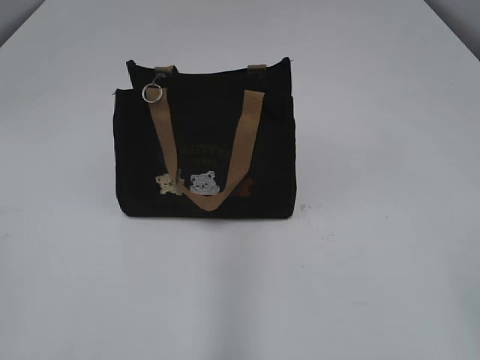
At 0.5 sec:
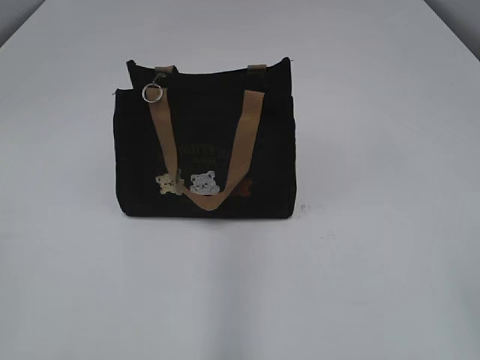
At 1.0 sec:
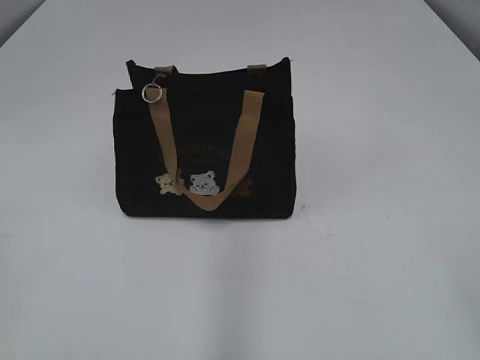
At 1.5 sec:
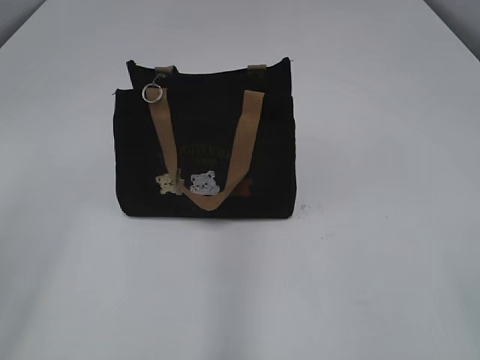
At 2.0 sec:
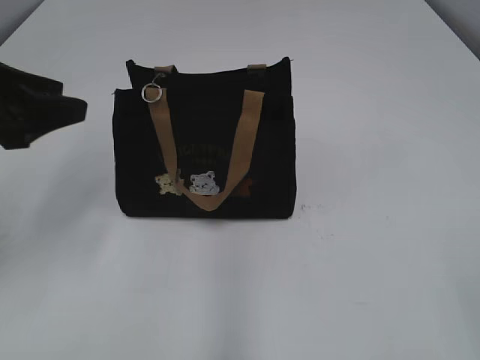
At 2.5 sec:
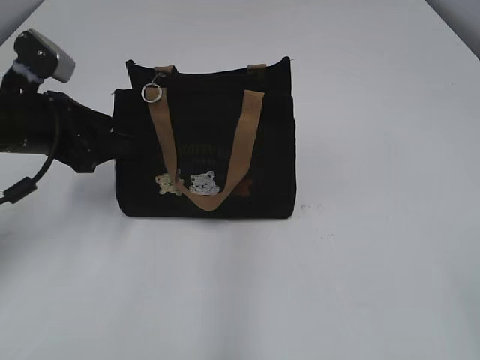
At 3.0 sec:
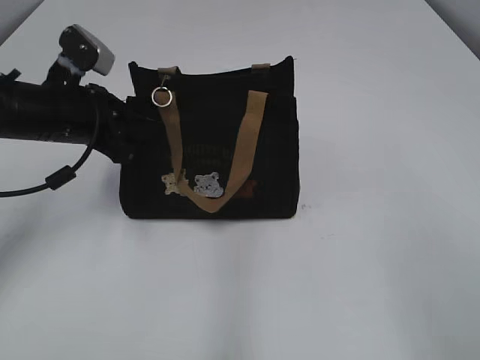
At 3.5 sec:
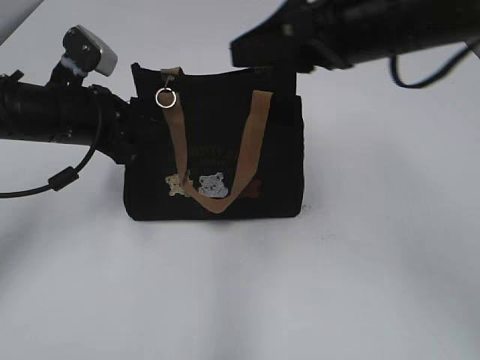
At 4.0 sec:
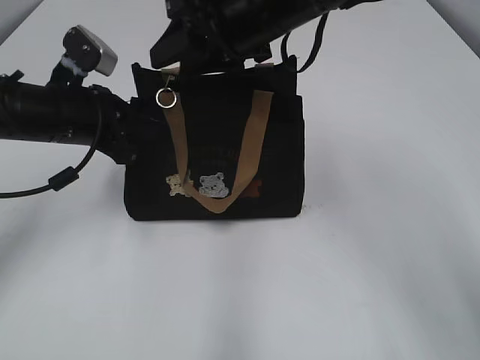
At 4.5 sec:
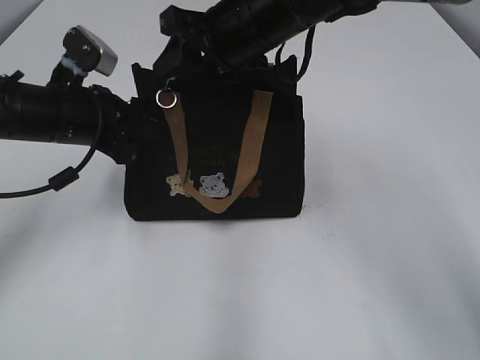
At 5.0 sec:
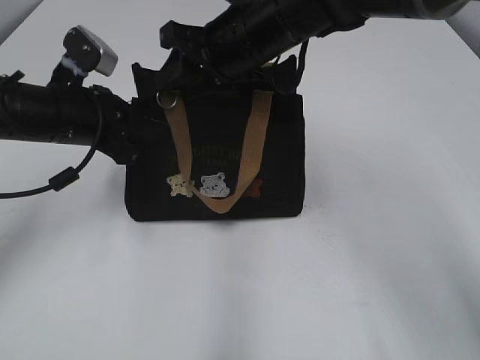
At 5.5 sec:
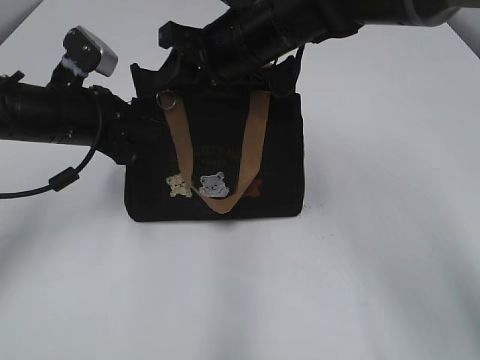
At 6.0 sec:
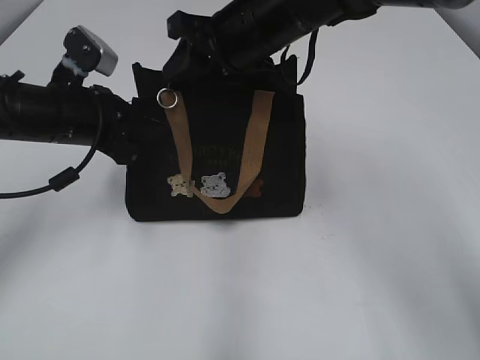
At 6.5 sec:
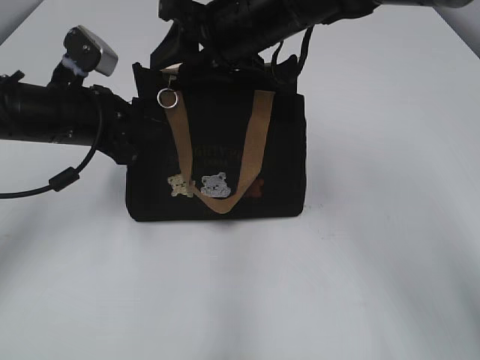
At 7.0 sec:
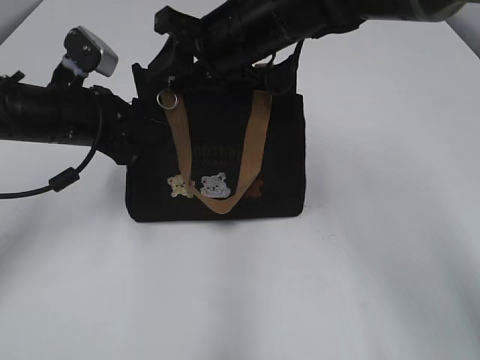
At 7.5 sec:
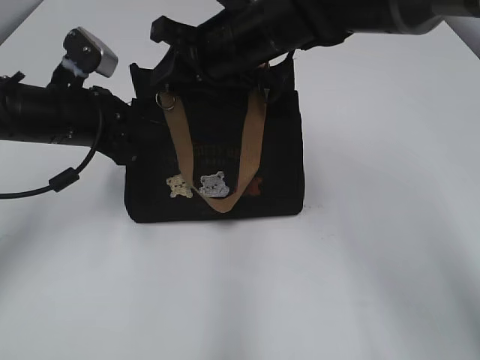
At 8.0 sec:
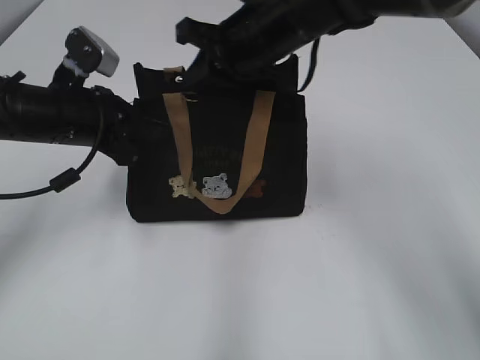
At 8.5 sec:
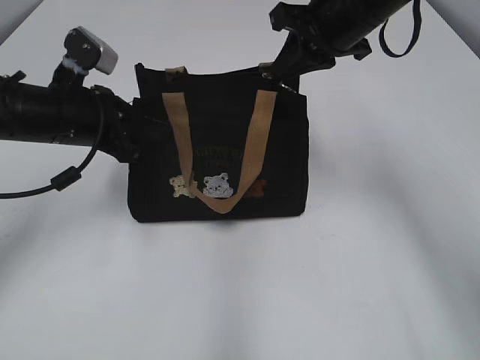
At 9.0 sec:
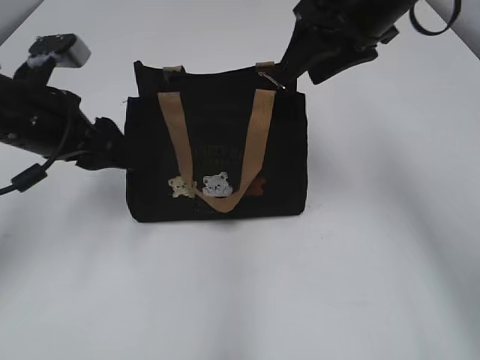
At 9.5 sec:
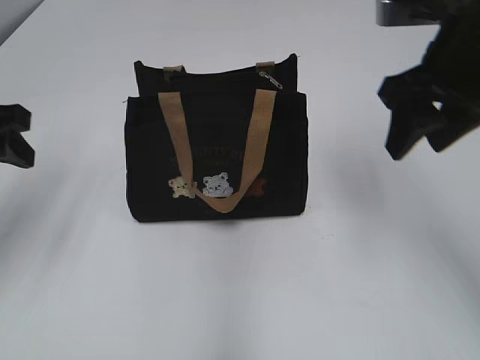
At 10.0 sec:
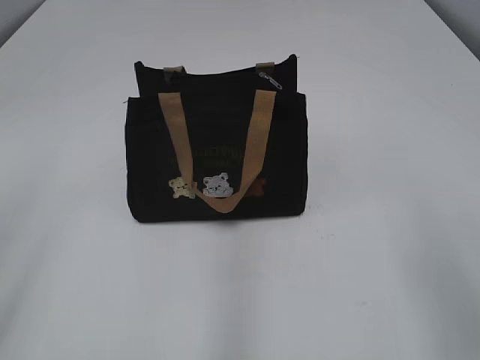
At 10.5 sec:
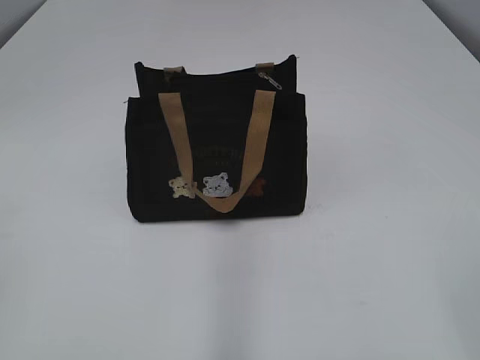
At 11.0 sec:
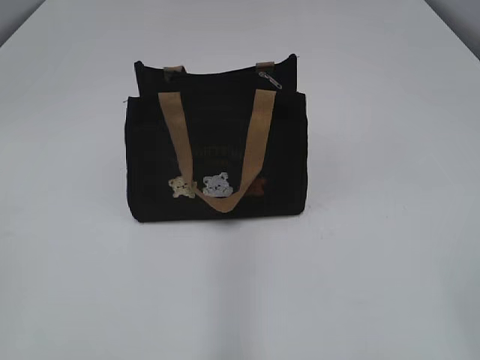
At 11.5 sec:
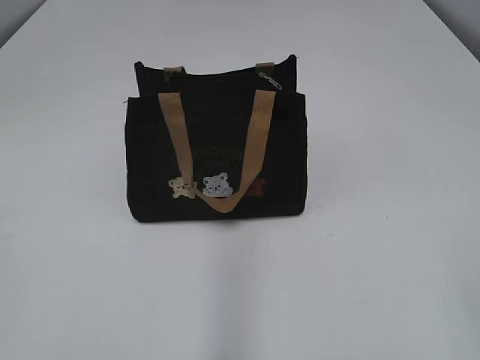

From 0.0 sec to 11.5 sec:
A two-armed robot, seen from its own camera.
Step, from 0.0 sec to 8.5 sec: Pull open the zipper with your right hand.
From 2.0 sec to 4.0 sec: The right gripper shifts roughly 40 cm forward and to the left. The left gripper moves forward, downward and to the right, about 15 cm, and closes up.
From 4.0 sec to 7.5 sec: There are only small adjustments of the grippers.
From 7.5 sec to 9.5 sec: The left gripper moves to the left, backward and upward, some 10 cm, and opens its fingers. Meanwhile the right gripper shifts roughly 20 cm to the right and backward, and opens its fingers.
From 9.5 sec to 11.5 sec: Both grippers move backward, approximately 30 cm.

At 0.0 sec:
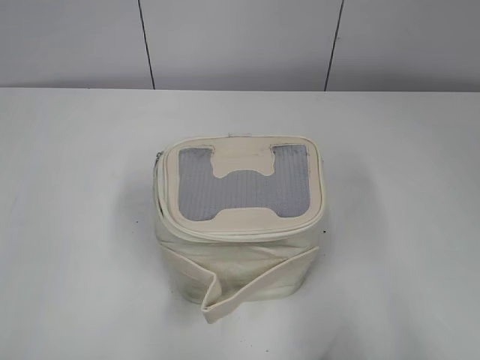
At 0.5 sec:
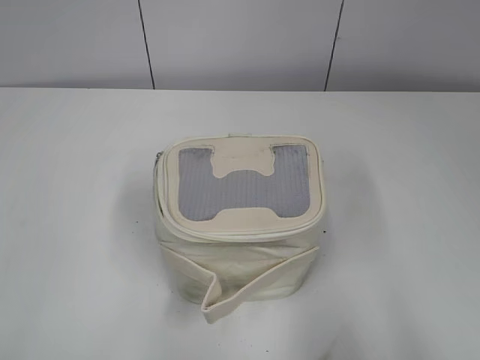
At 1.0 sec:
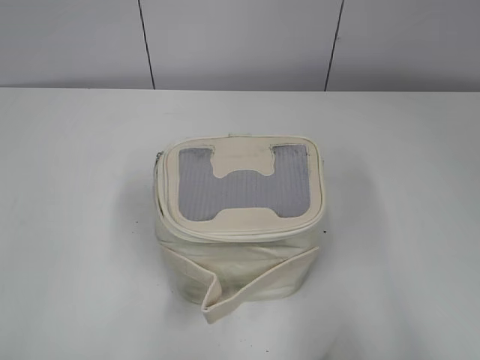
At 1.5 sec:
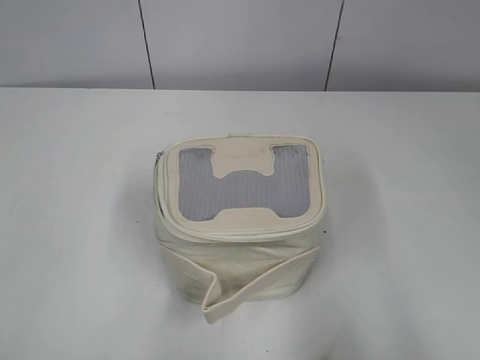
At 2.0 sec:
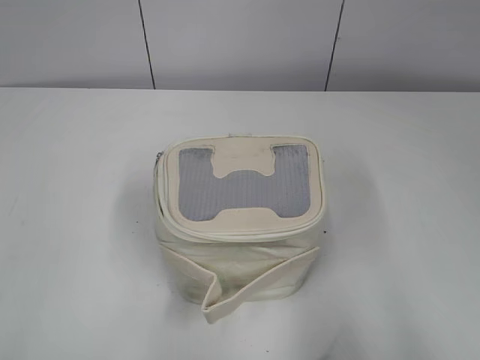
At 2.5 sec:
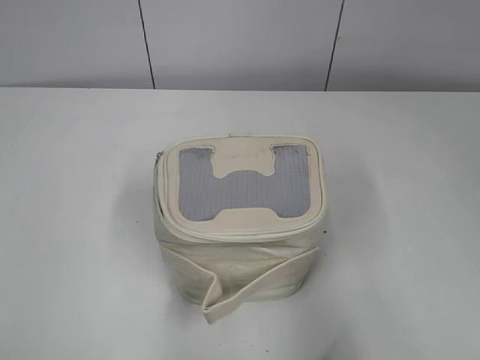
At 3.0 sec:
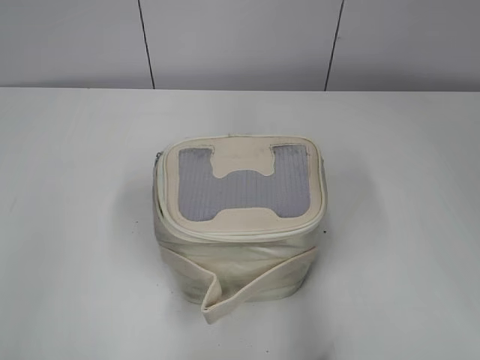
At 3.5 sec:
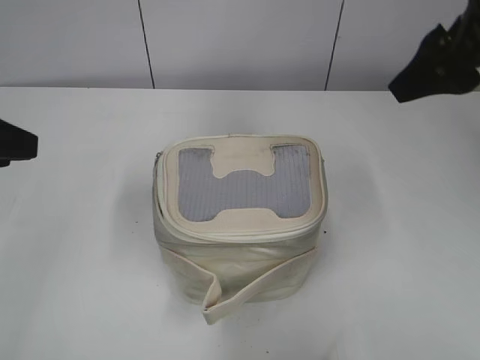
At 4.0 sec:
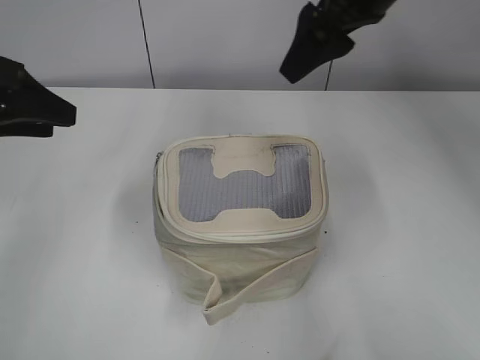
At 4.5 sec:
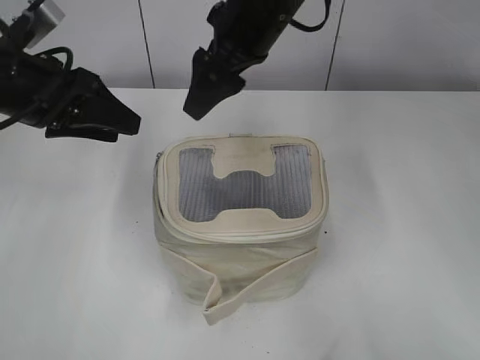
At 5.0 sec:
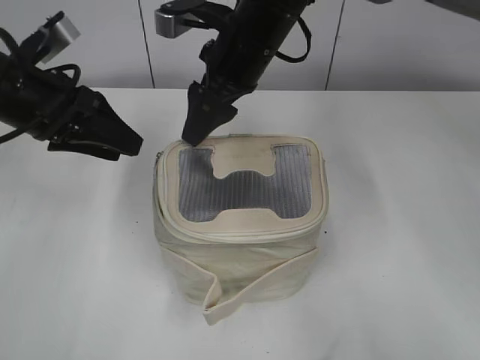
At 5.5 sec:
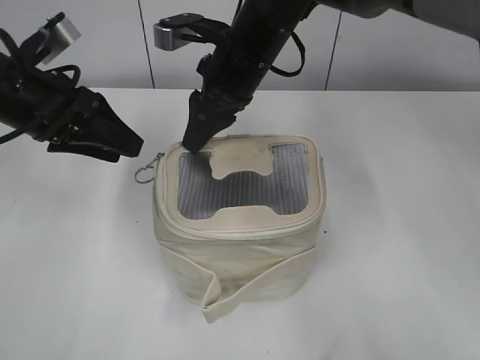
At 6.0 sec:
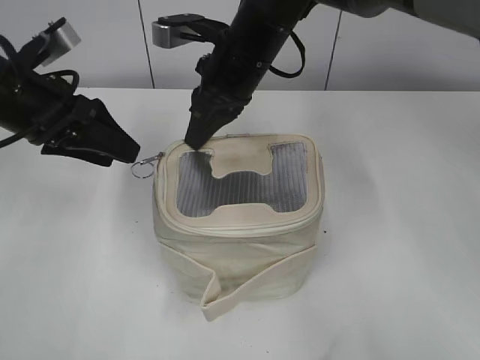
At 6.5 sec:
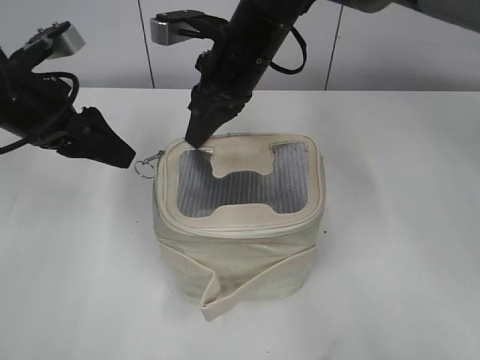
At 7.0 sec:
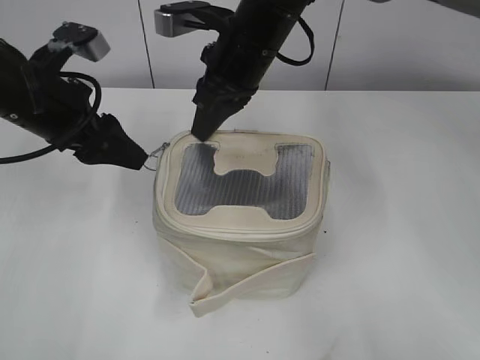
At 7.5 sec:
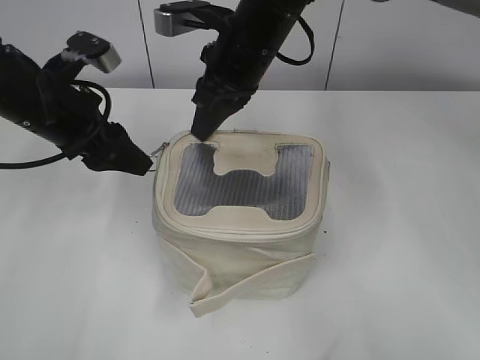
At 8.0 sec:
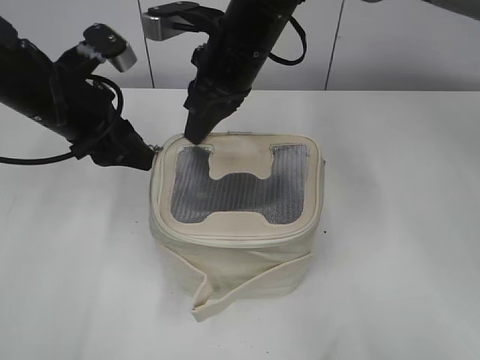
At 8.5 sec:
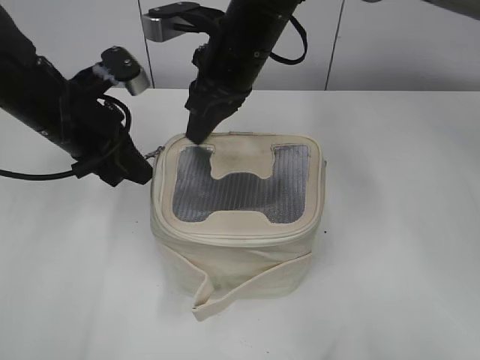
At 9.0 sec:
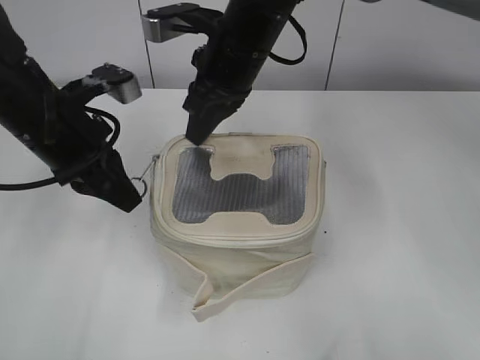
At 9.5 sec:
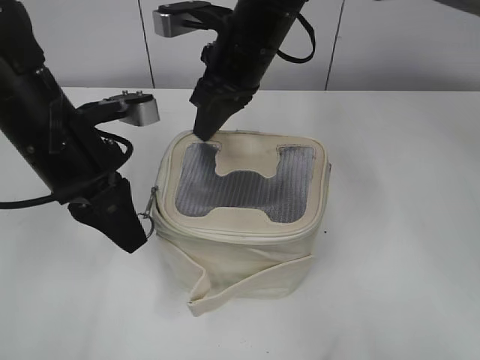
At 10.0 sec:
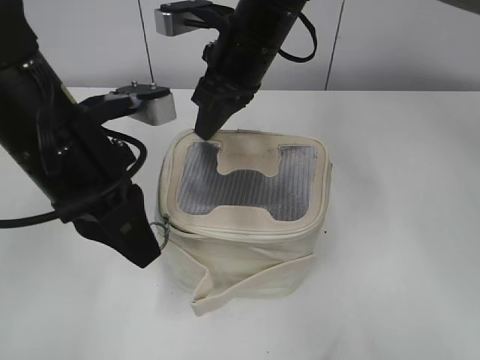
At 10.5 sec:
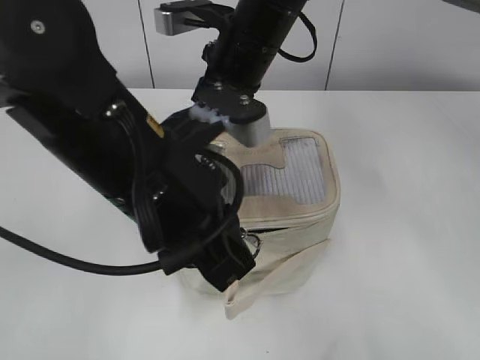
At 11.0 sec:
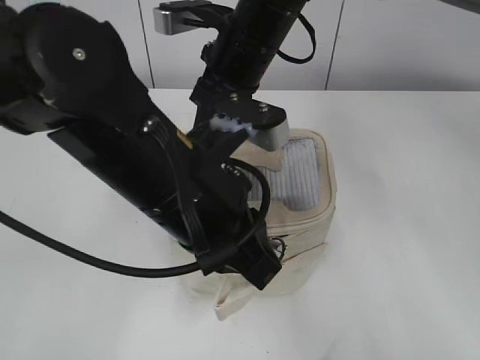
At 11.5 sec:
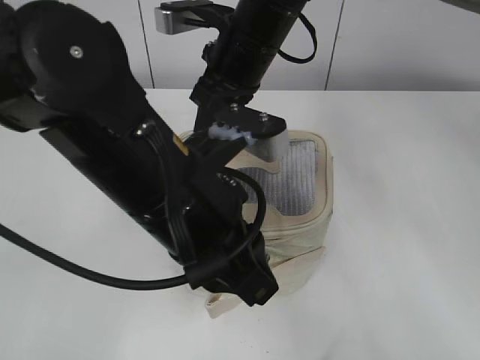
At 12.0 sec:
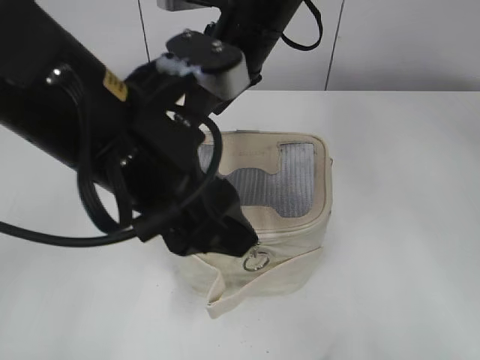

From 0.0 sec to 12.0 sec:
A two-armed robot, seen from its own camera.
Step, from 0.0 sec to 12.0 sec: Hold the bag with your right hand.
From 2.0 sec to 4.0 sec: The left gripper is displaced forward by about 30 cm; the right gripper is displaced forward and to the left by some 40 cm.
From 4.0 sec to 6.0 sec: The right gripper heads to the left and downward, covering roughly 15 cm, and closes. The left gripper travels to the right by about 5 cm.
From 8.0 sec to 10.0 sec: The left gripper shifts about 10 cm backward, and closes its fingers.
From 10.0 sec to 12.0 sec: The right gripper opens. The left gripper heads to the right, covering roughly 5 cm, and opens up.

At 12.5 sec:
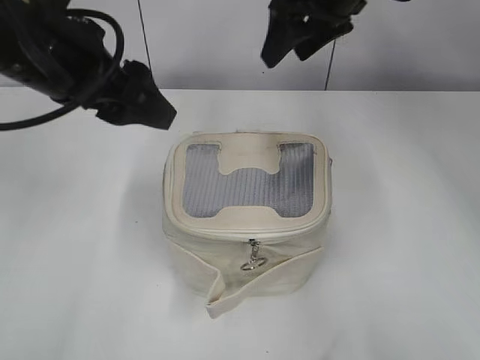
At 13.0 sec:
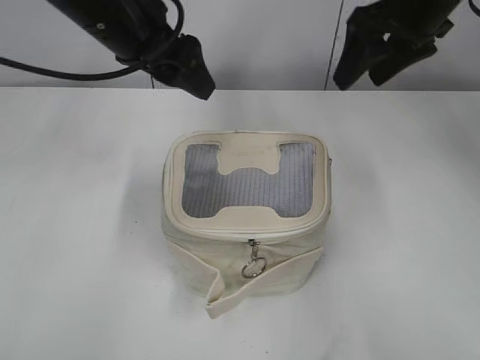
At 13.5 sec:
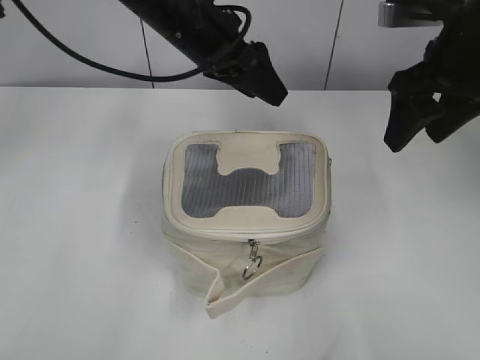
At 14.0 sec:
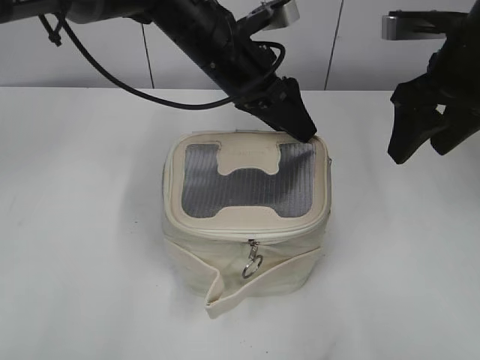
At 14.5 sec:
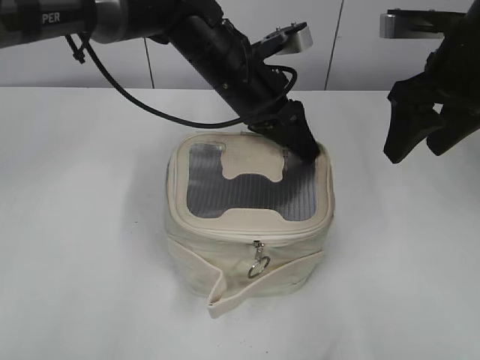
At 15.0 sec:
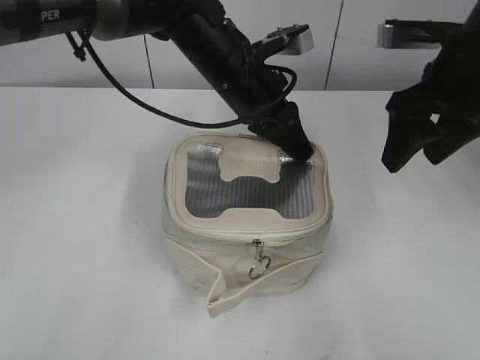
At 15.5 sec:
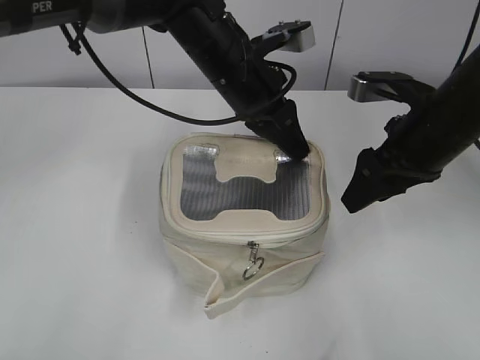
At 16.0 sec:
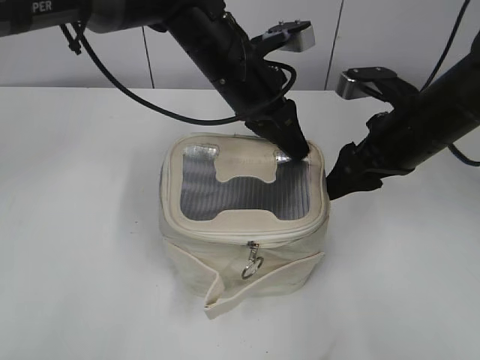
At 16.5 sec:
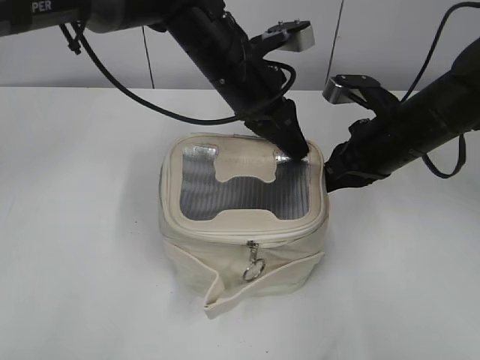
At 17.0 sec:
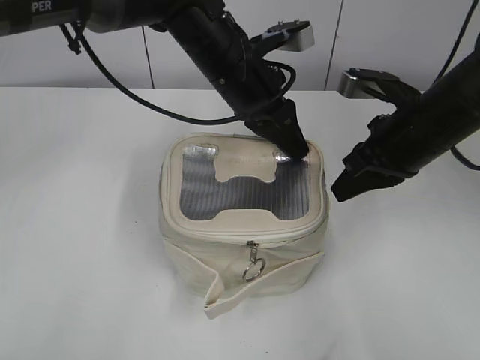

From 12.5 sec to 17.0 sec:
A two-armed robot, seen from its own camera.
From 12.5 sec to 14.5 sec: The right gripper heads to the right and backward, covering approximately 15 cm, while the left gripper moves to the right, forward and downward, some 20 cm.
From 14.5 sec to 17.0 sec: The right gripper heads downward, covering some 10 cm, and closes up. The left gripper closes its fingers.
